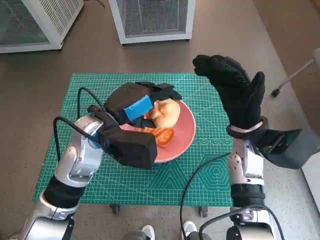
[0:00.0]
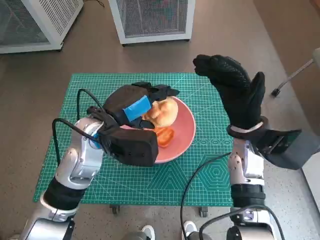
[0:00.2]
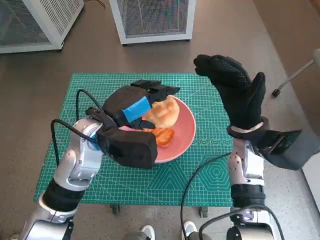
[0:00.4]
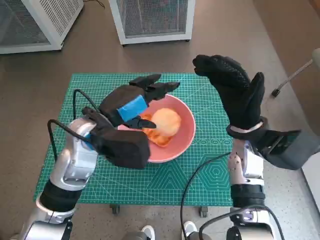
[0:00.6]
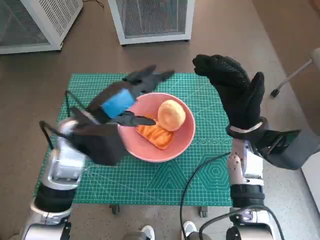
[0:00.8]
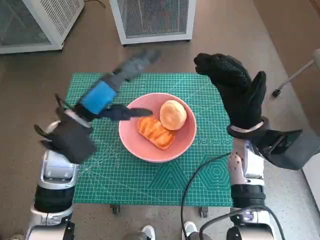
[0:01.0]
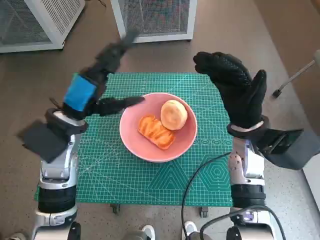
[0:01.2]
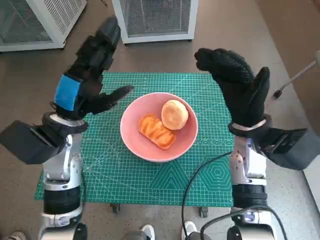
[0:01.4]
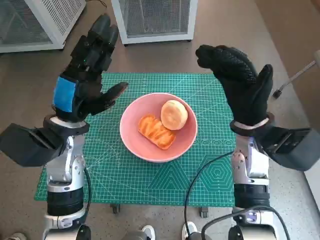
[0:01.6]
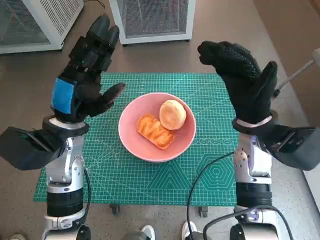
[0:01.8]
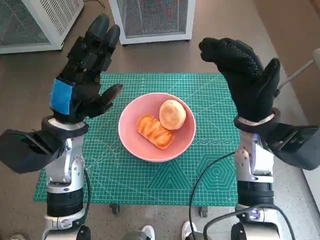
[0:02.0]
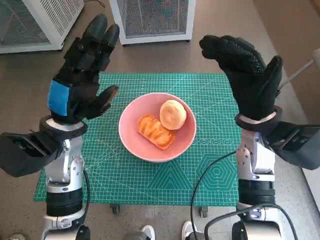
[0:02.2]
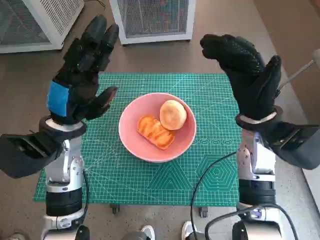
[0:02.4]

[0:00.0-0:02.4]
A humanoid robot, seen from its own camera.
Task of the whole recording: Push the bowl into the center of the table and put the bread into the bowl.
0:00.0 to 0:01.2: The left hand moves to the left, some 5 cm.

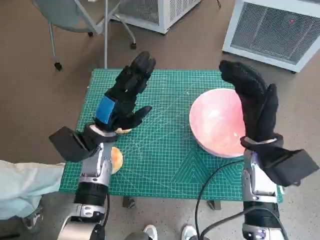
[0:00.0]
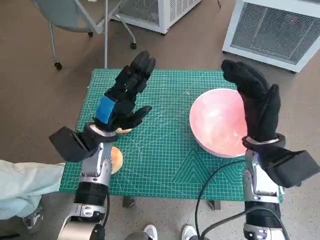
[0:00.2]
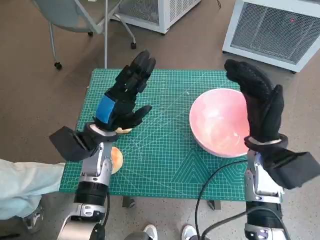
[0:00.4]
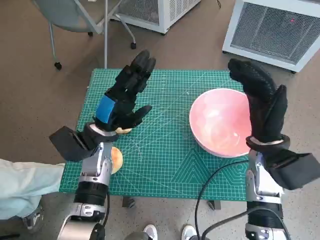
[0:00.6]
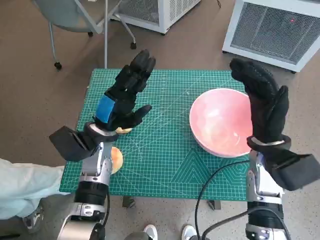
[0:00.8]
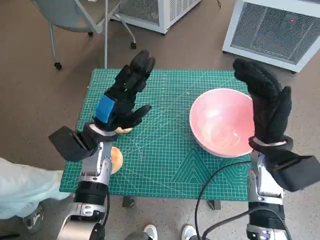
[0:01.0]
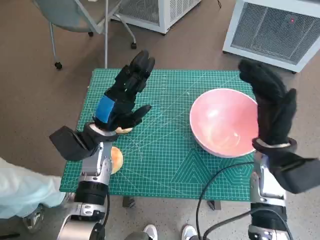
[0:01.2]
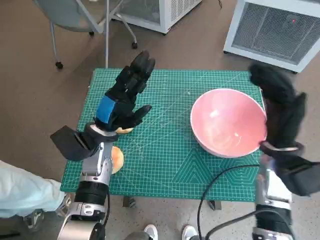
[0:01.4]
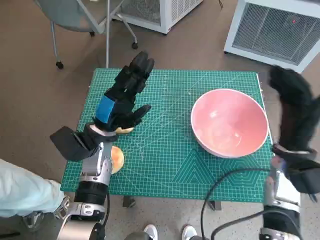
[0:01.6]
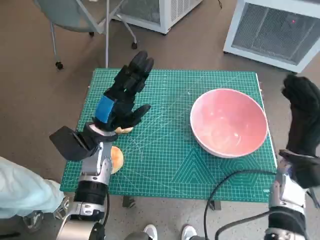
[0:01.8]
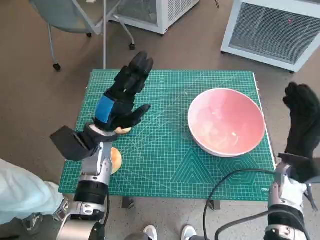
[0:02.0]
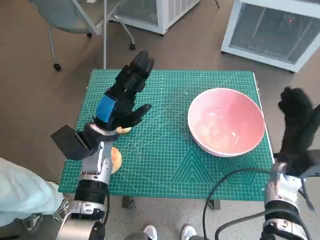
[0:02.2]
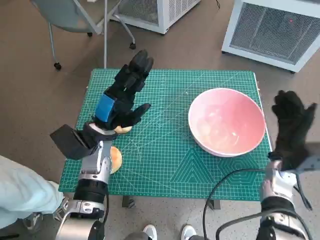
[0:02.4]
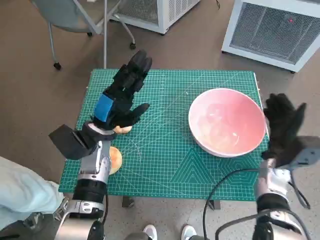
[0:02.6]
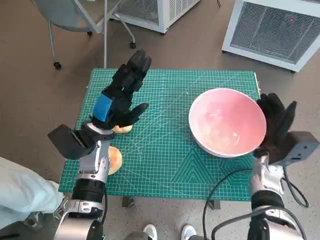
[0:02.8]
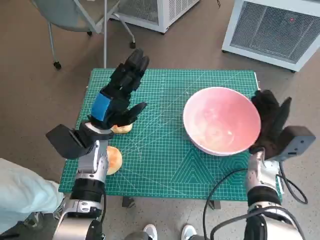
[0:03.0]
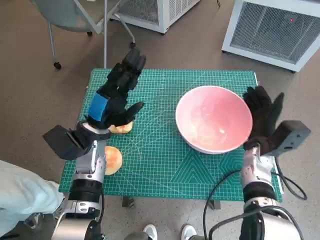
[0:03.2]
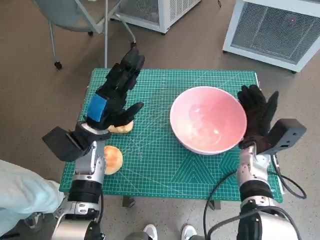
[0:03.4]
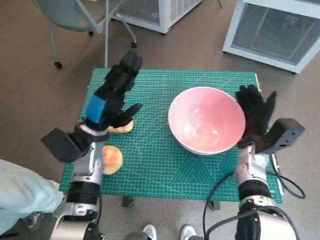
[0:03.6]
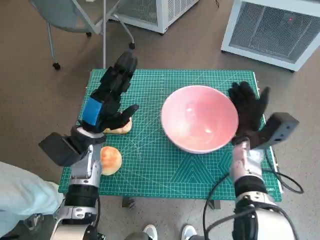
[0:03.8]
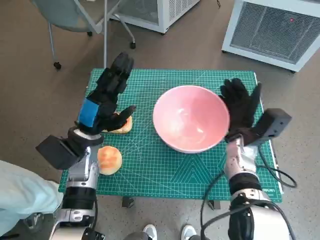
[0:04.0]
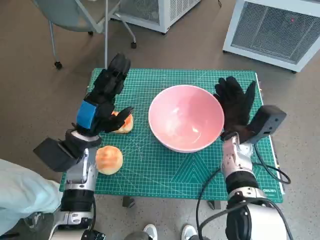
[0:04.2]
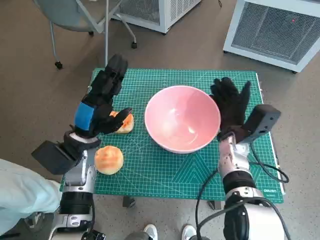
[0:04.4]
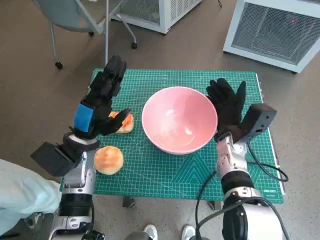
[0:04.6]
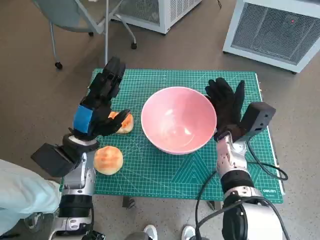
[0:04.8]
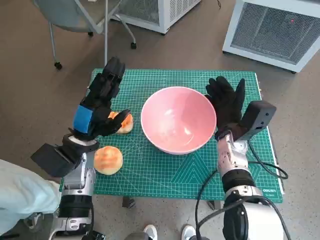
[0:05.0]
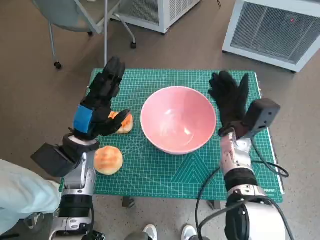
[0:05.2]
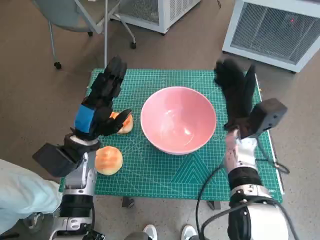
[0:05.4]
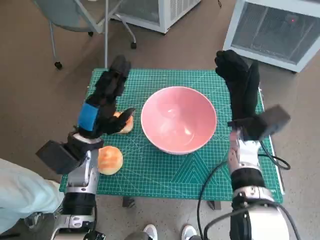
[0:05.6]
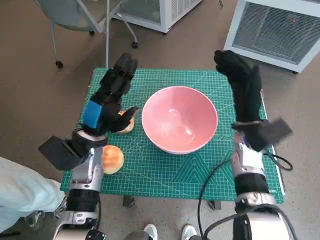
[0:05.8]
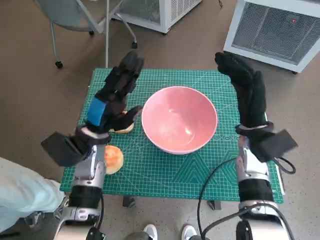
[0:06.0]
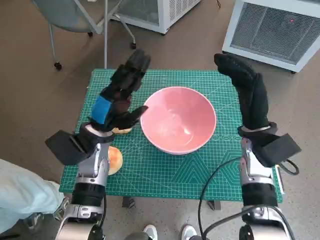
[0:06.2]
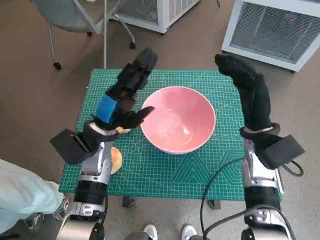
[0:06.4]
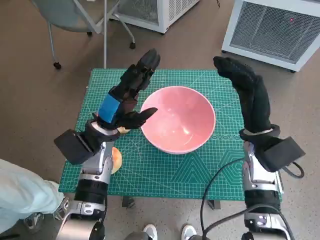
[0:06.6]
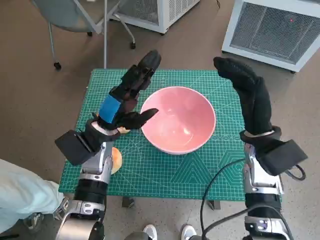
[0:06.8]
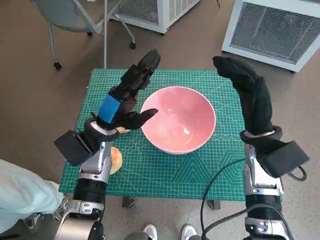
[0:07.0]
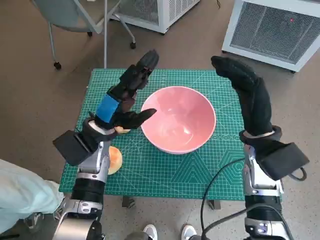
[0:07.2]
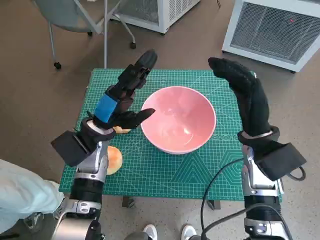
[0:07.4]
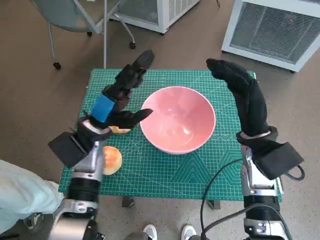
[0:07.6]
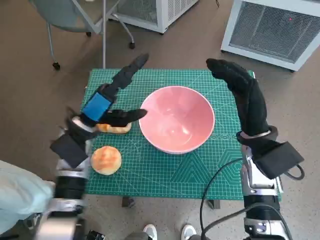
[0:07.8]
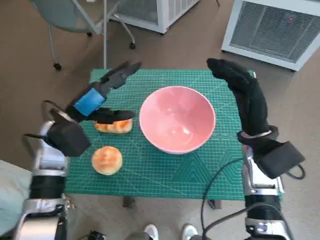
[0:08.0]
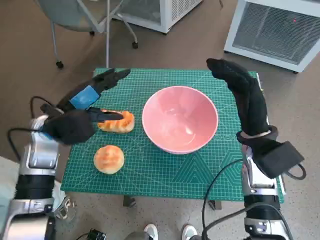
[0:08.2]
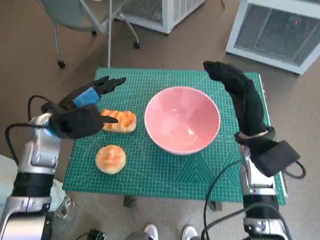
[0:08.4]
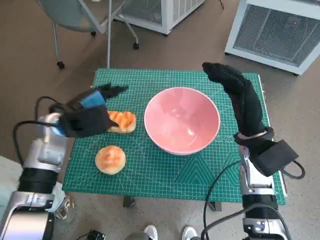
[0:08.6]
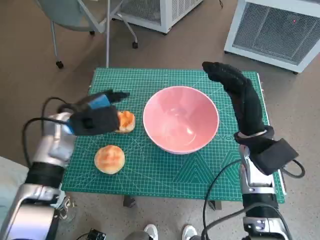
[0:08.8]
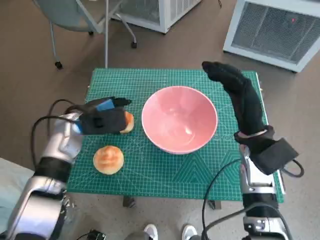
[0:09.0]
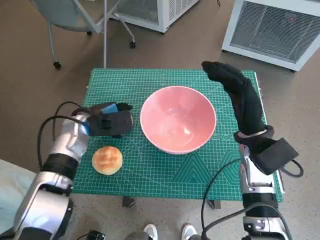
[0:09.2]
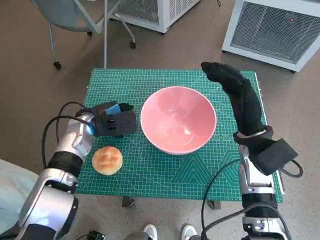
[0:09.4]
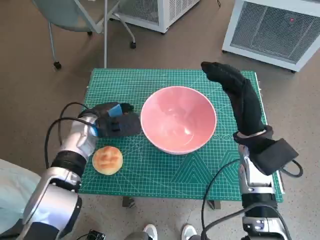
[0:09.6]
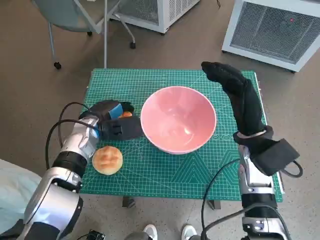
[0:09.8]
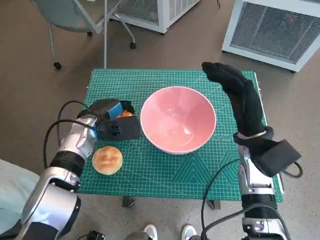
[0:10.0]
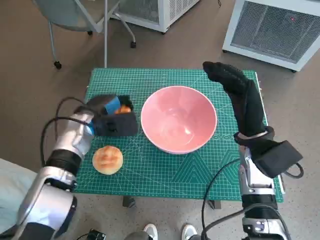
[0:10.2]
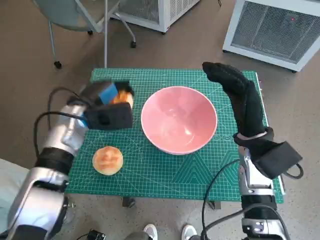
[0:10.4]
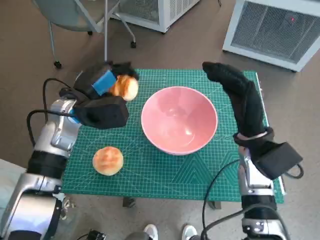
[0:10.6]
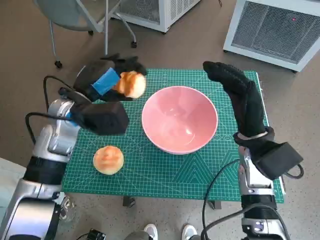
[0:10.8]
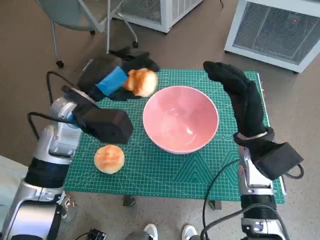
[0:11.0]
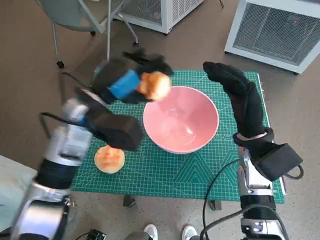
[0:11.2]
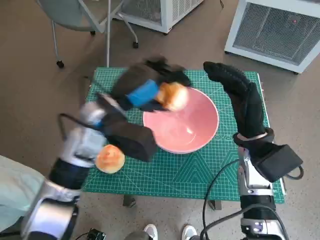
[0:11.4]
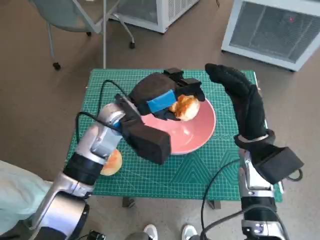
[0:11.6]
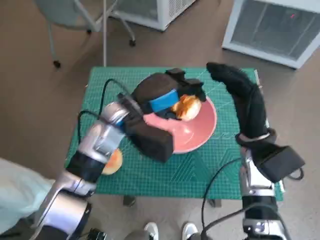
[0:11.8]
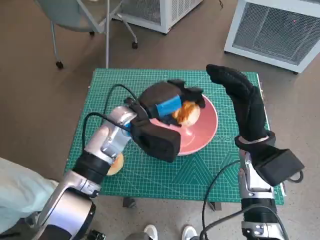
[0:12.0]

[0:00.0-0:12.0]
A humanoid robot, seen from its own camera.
Task of the whole recording: Push the bowl into the center of the table and put the bread into the bowl.
Step, 0:00.0 to 0:05.2: Move the pink bowl to the center of table with right hand.
Step, 0:05.4 to 0:09.8: Grasp the long bread with left hand.
0:01.6 to 0:03.0: The right hand heads downward, covering approximately 5 cm.
0:03.0 to 0:04.4: The right hand goes some 5 cm to the left.
0:04.4 to 0:06.0: The right hand is displaced upward by approximately 5 cm.
0:06.0 to 0:07.6: The hands stay close to where they were, moving slightly.
0:07.6 to 0:09.0: The left hand goes some 5 cm to the left.
0:09.0 to 0:10.4: The hands stay close to where they were, moving slightly.
0:10.4 to 0:12.0: The left hand moves to the right, about 10 cm.

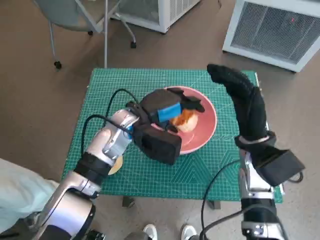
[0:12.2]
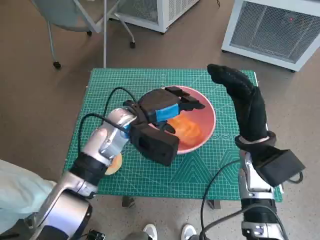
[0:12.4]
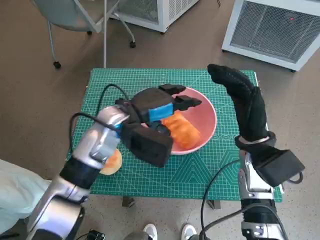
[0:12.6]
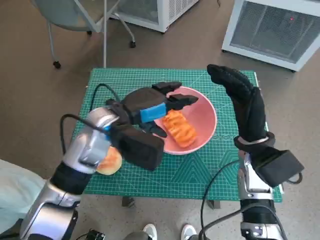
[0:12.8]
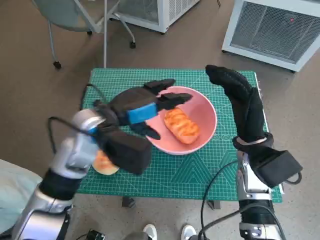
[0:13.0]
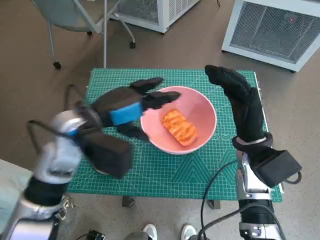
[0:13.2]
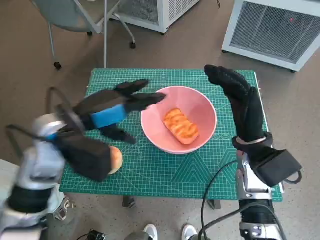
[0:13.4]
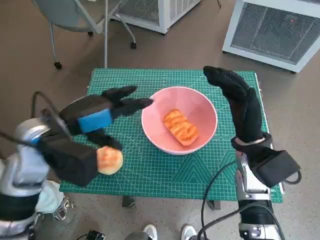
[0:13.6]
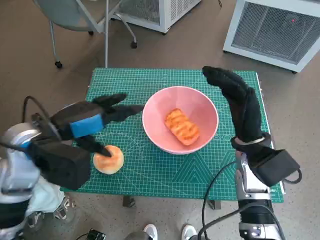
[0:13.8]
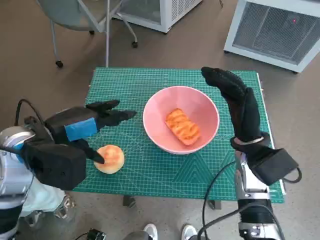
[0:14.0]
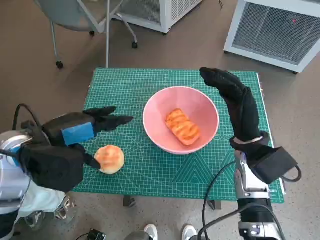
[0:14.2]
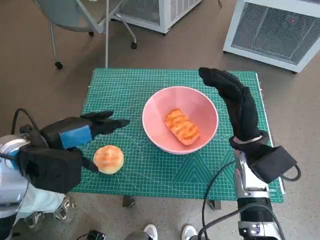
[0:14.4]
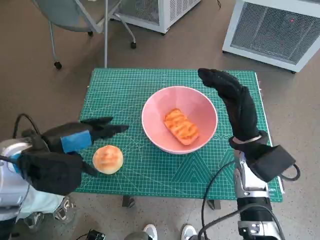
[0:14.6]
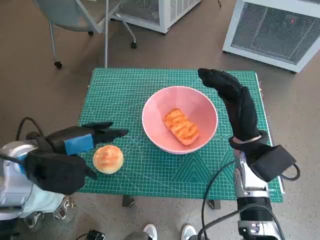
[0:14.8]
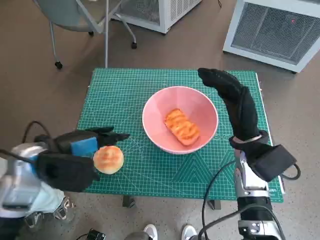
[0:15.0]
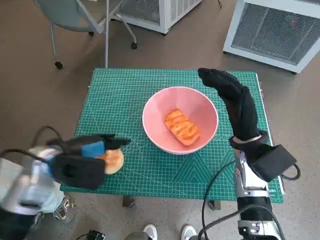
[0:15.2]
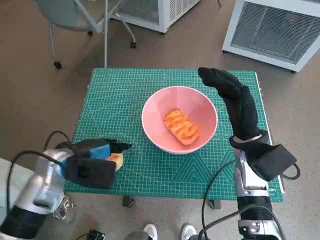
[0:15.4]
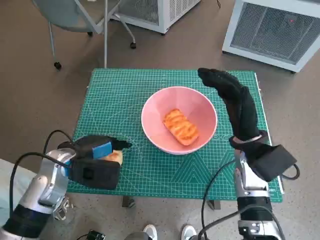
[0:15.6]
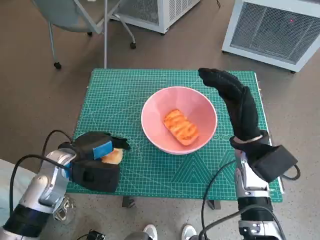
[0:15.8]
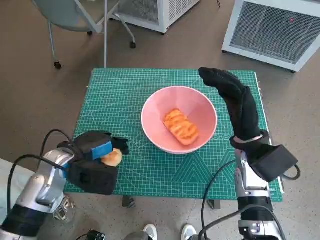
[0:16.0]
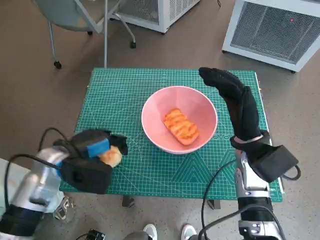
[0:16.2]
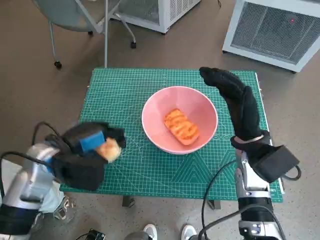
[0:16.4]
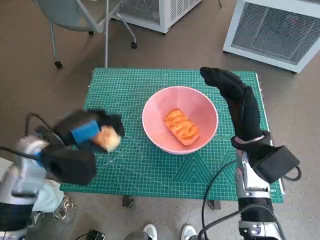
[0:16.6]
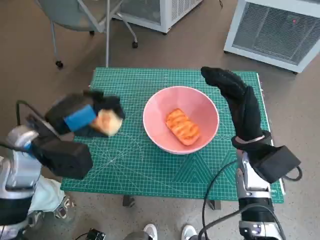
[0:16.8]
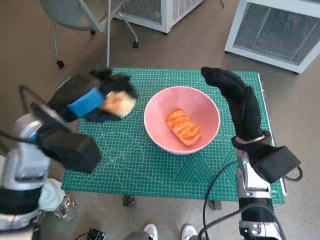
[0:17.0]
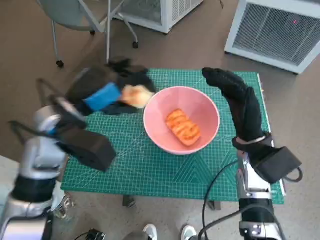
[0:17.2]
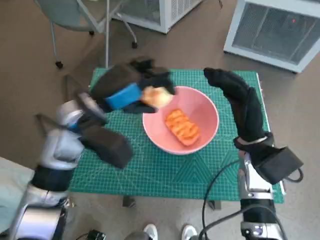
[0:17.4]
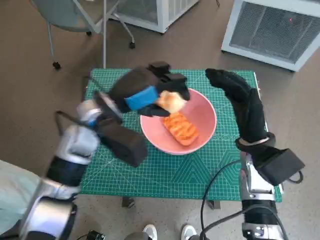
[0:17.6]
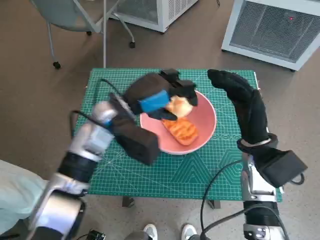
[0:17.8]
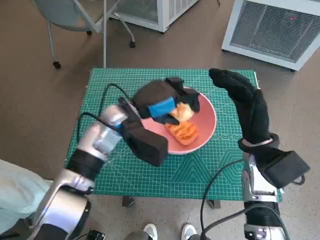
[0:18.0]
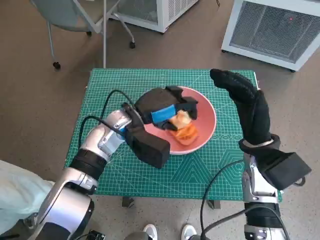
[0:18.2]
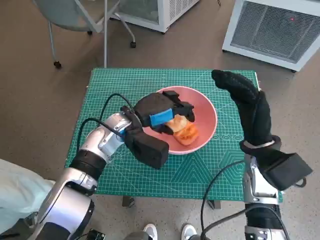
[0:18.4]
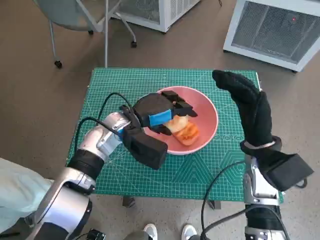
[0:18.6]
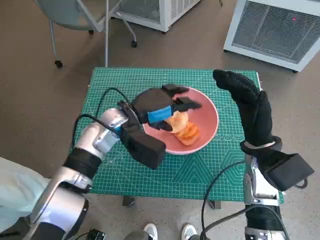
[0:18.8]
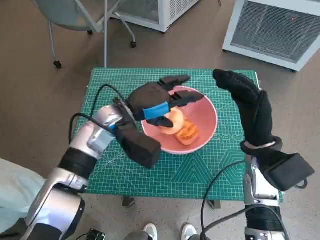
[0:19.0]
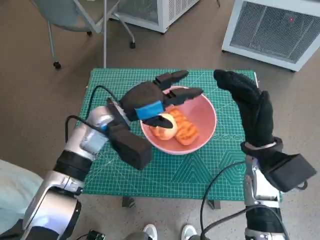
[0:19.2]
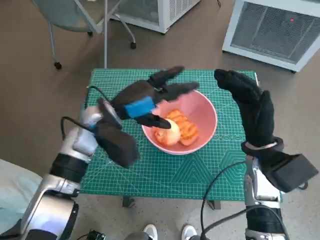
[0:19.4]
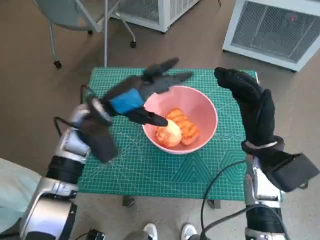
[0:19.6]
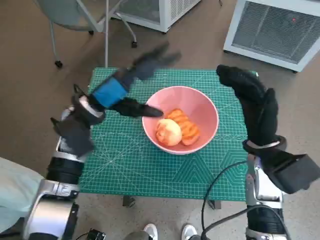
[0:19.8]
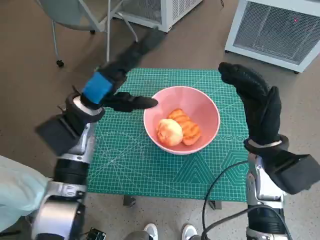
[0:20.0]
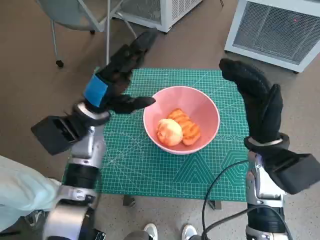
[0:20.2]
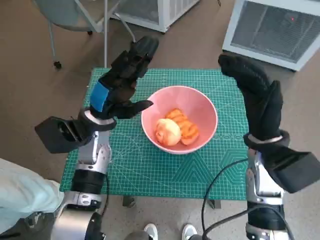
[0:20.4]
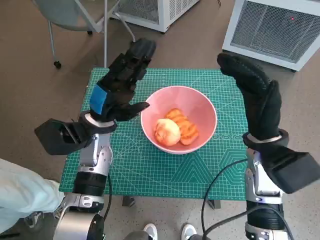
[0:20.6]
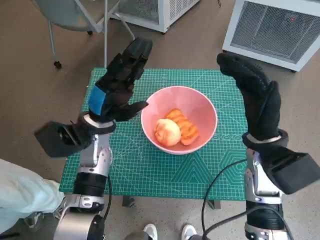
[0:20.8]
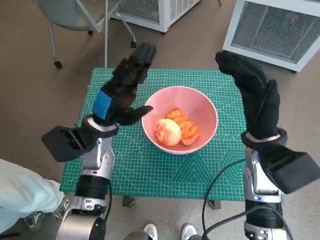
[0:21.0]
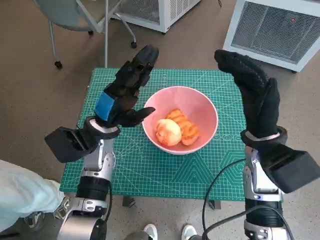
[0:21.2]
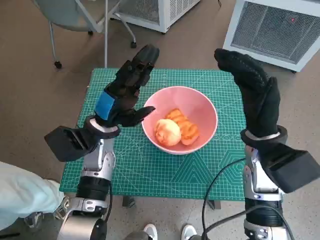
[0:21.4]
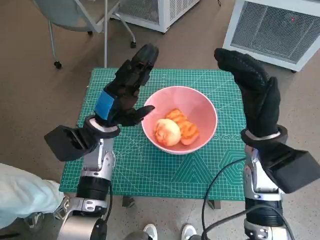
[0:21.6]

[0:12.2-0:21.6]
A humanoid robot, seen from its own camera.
Task of the whole recording: Push the bowl into the center of the table and put the bread into the bowl.
Step, 0:12.8 to 0:15.8: Grasp the round bread with left hand.
Step, 0:16.0 to 0:18.8: Place the round bread in pink bowl with left hand.
0:12.2 to 0:13.8: The left hand travels to the left, backward and upward by about 15 cm.
0:13.8 to 0:15.4: The left hand is displaced downward by roughly 10 cm.
0:15.4 to 0:17.0: The left hand moves upward, about 10 cm.
0:17.0 to 0:18.4: The left hand goes roughly 15 cm to the right, downward and forward.
0:18.4 to 0:20.0: The left hand moves to the left and upward, approximately 10 cm.
0:20.0 to 0:21.6: The left hand heads downward, covering roughly 5 cm.
